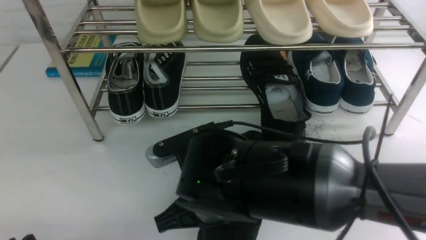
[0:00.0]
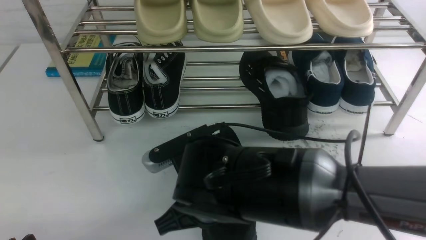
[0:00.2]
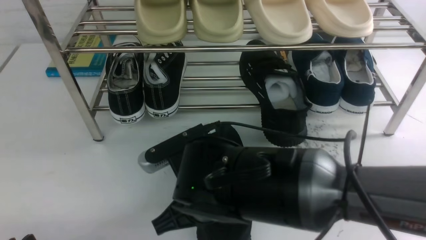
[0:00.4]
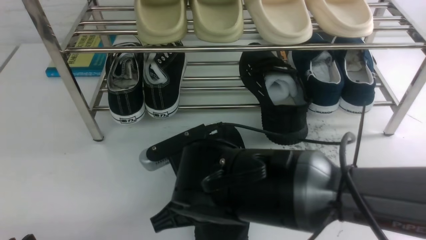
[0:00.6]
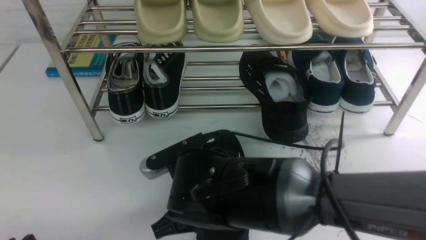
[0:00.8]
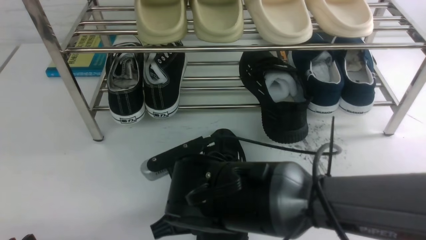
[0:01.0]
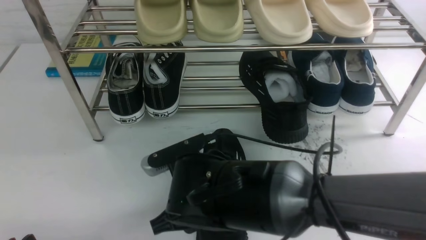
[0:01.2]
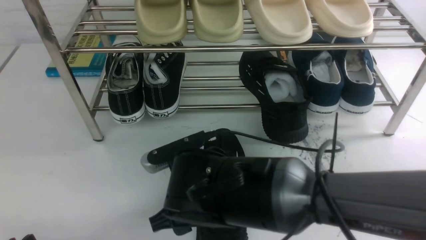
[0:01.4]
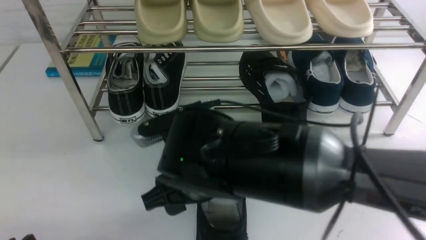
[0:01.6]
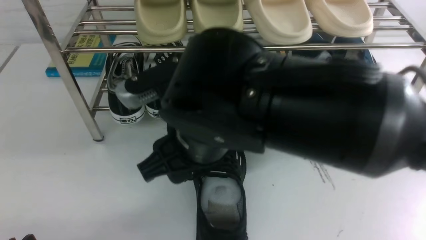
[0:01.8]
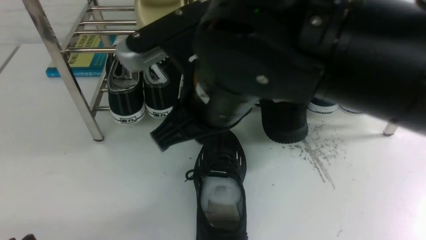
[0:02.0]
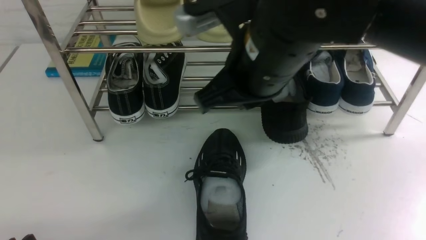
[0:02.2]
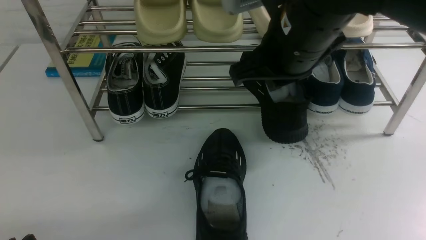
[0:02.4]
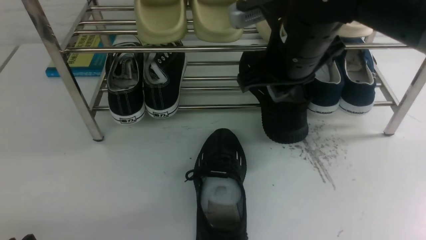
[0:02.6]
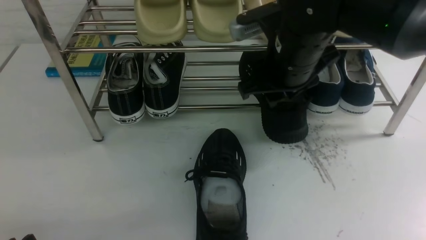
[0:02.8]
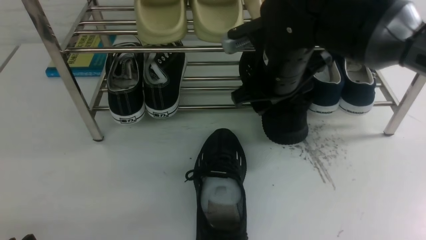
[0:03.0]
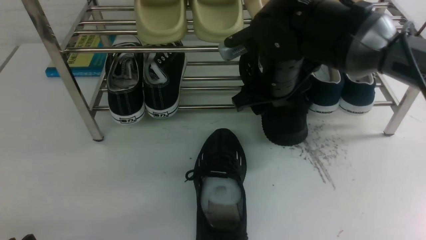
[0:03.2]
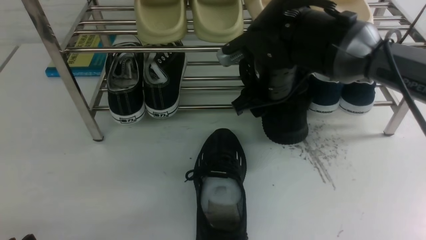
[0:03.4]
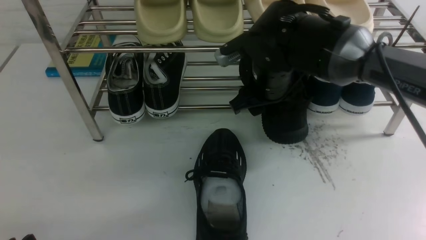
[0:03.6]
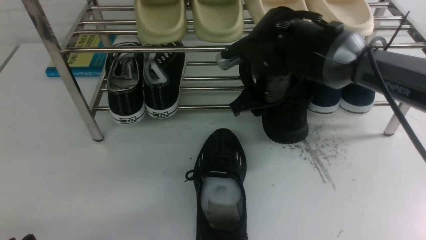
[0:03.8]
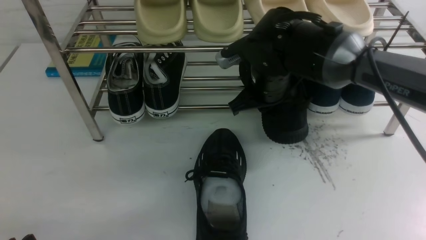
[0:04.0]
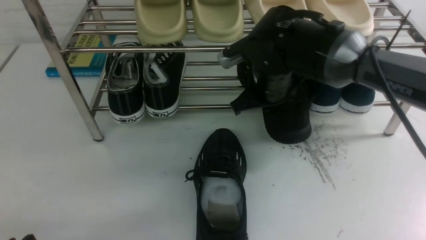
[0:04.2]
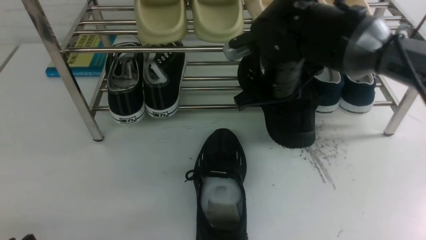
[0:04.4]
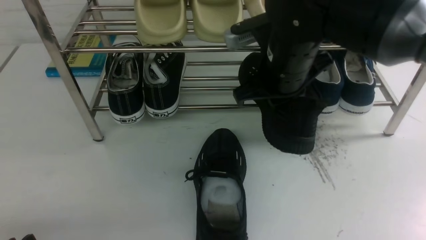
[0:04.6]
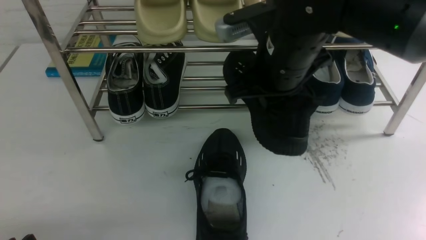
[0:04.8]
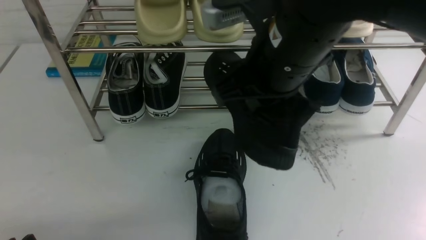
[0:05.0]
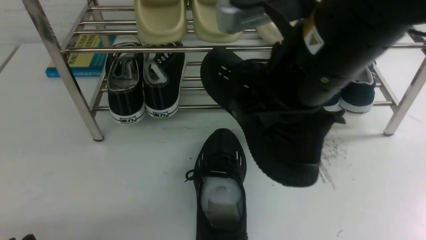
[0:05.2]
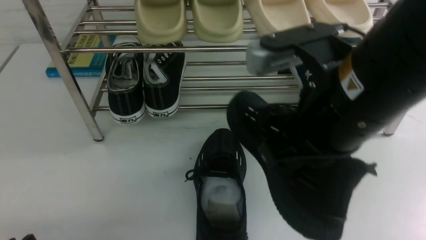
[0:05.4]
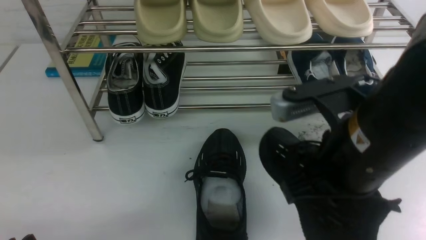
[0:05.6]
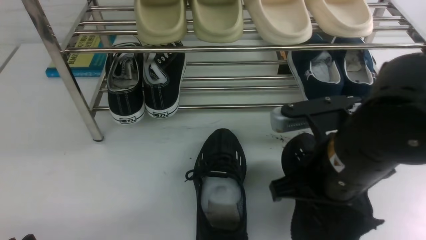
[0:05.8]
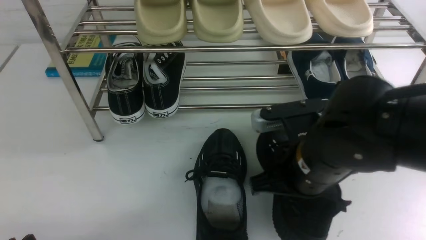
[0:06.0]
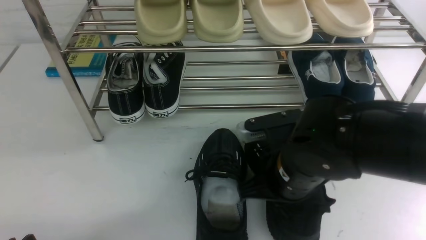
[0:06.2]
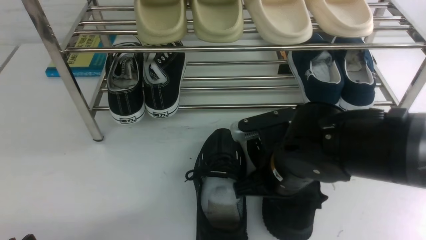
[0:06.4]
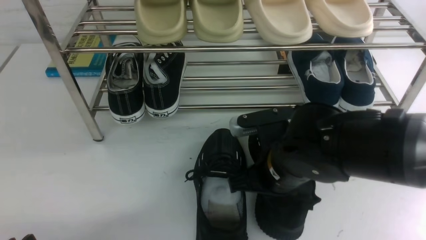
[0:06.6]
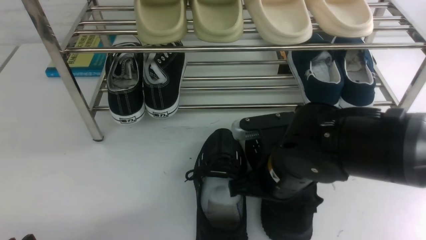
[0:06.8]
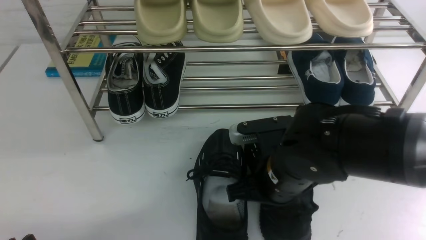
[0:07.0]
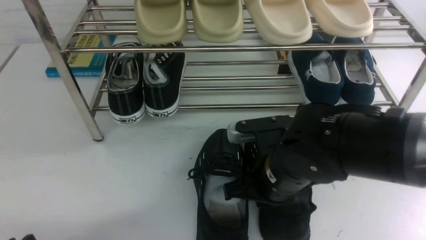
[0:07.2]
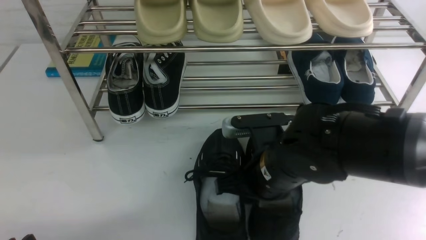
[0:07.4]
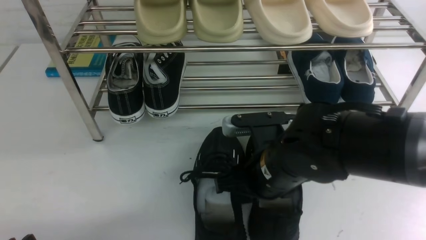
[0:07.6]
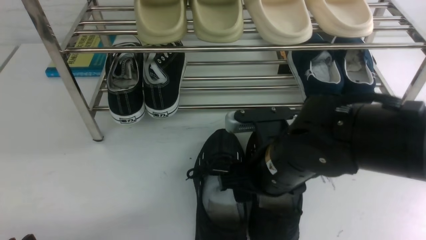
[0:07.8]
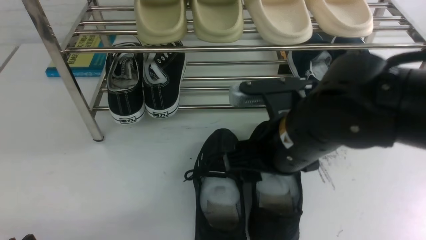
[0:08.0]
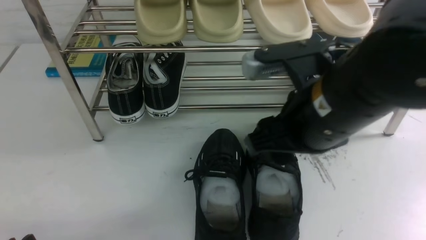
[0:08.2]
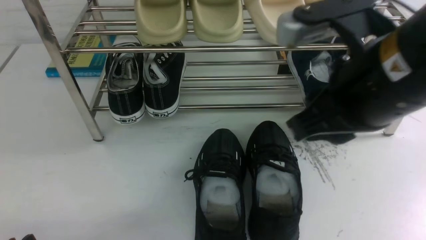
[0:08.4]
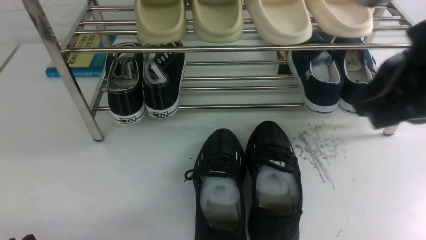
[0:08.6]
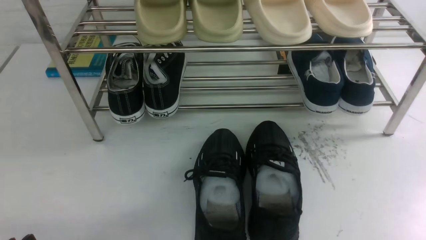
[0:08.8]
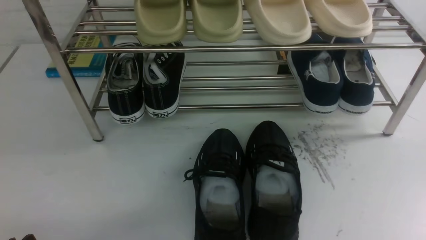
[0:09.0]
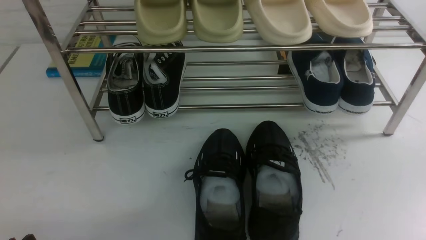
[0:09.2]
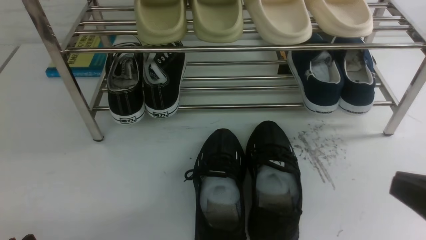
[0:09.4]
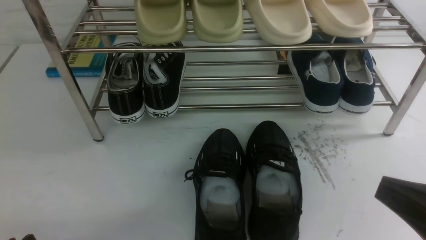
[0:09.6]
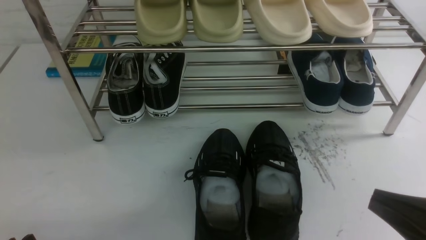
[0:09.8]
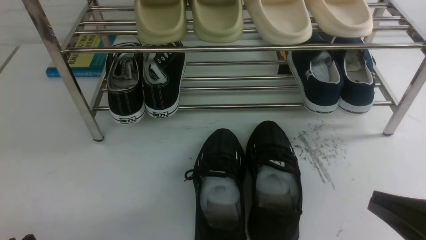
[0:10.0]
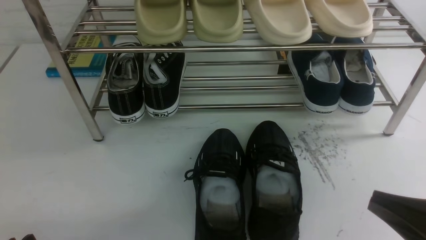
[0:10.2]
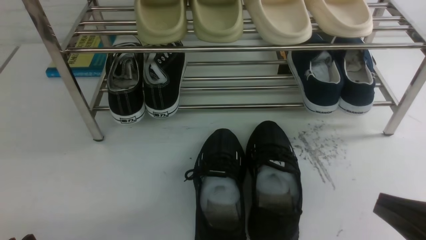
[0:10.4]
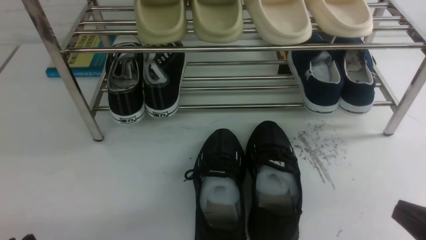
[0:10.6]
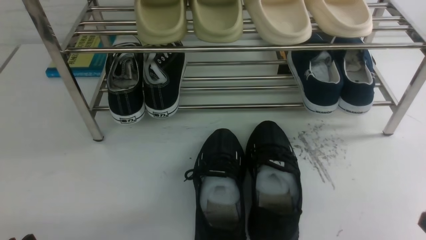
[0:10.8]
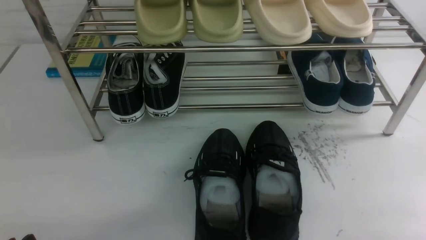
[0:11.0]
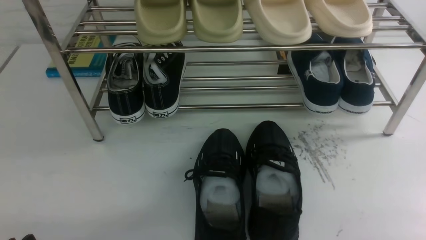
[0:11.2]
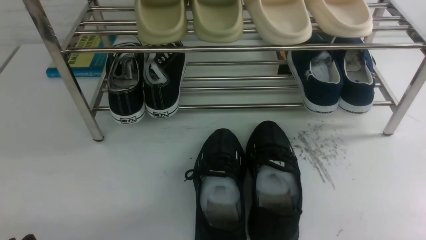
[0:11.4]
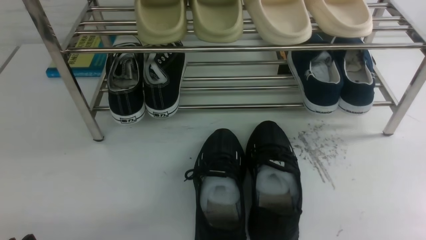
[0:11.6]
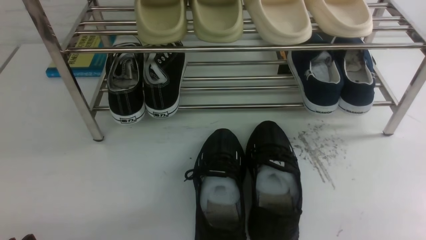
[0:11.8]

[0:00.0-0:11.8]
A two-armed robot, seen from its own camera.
Step, 0:01.8 to 0:04.6: use the right arm to clamp a shoe in the middle of the shoe rack.
Step, 0:05.0 to 0:08.0: use the right arm to take out the clamped shoe from the shoe rack and put it down.
0:00.0 to 0:01.4: The right gripper opens its fingers.
0:01.4 to 0:03.0: The right gripper shifts roughly 20 cm forward, to the right and upward, and closes and opens again.
0:03.0 to 0:04.4: The right gripper closes.
0:04.4 to 0:06.0: The right gripper heads backward, covering some 15 cm.
0:06.0 to 0:07.4: The right gripper ends up approximately 5 cm from where it was, and opens its fingers.
0:07.4 to 0:08.8: The right gripper heads upward, to the right and backward, covering roughly 35 cm, and closes.
0:08.8 to 0:10.4: The right gripper goes roughly 20 cm downward.
0:10.4 to 0:11.8: The right gripper shifts approximately 10 cm downward and to the right.

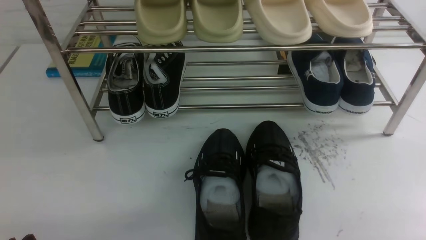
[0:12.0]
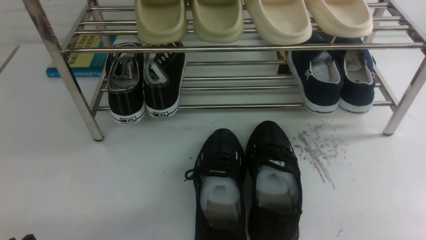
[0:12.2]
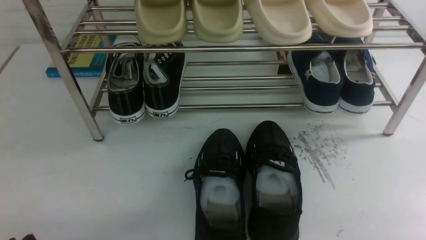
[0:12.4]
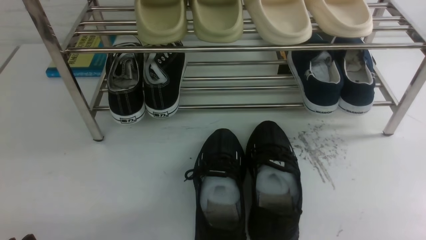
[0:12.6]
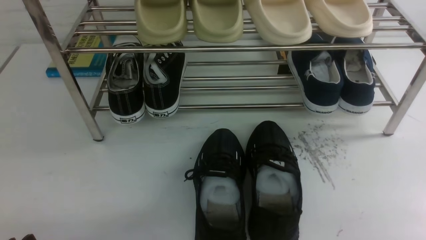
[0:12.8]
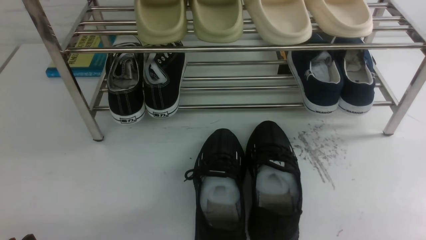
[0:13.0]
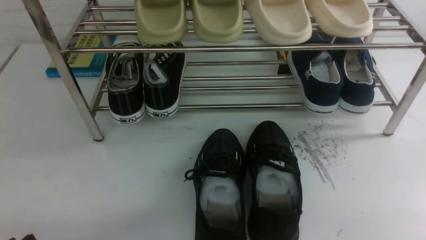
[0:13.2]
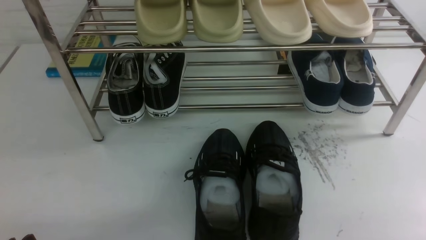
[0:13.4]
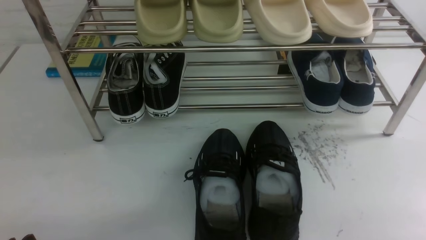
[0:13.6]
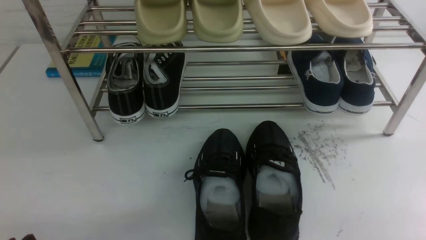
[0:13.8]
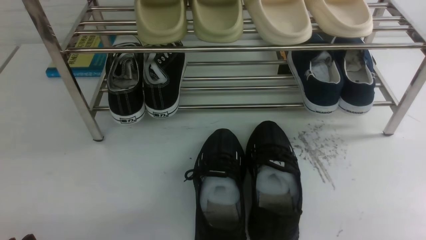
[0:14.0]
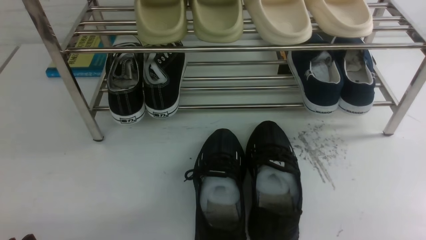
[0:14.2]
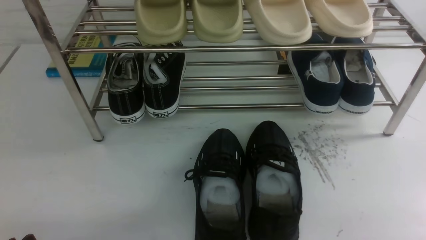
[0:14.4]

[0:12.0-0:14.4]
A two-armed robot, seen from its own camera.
0:12.0 to 0:14.4: Both grippers stay put.
